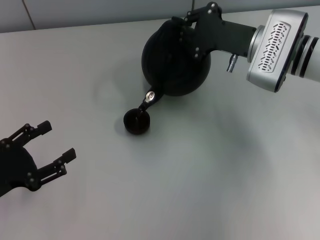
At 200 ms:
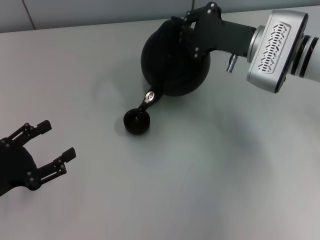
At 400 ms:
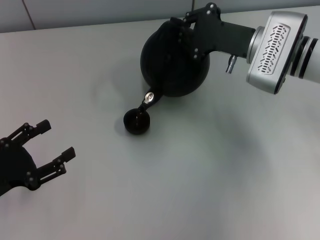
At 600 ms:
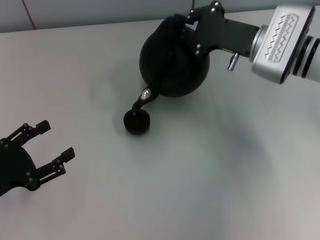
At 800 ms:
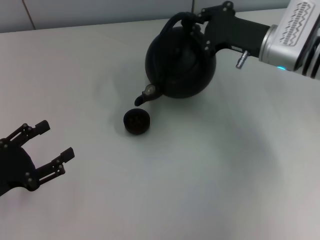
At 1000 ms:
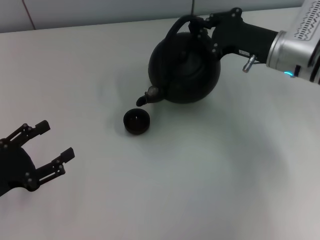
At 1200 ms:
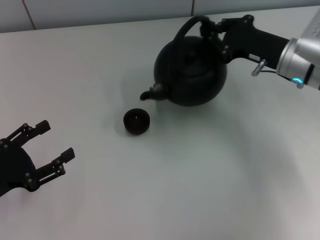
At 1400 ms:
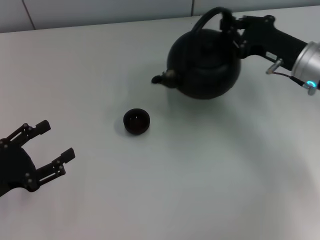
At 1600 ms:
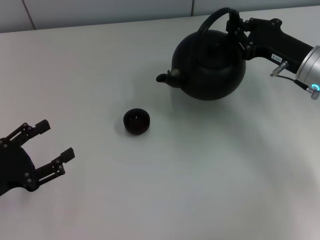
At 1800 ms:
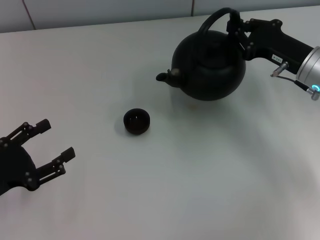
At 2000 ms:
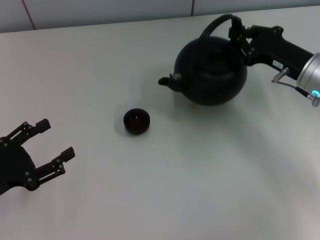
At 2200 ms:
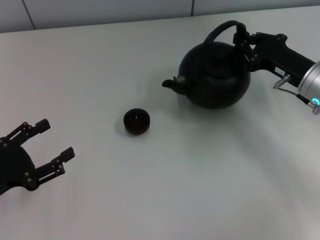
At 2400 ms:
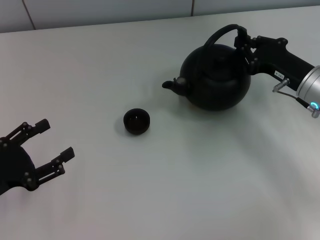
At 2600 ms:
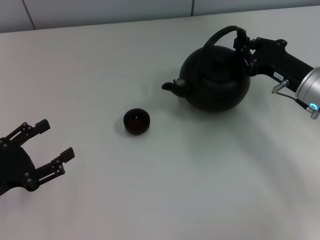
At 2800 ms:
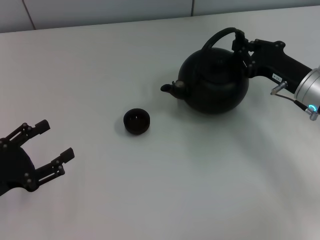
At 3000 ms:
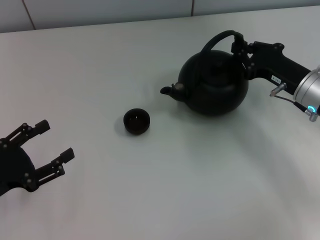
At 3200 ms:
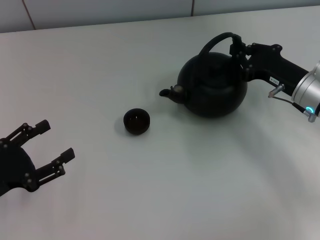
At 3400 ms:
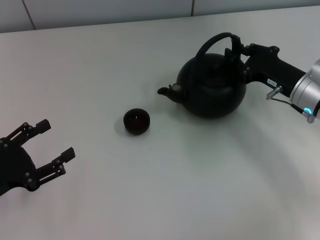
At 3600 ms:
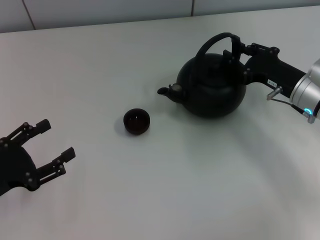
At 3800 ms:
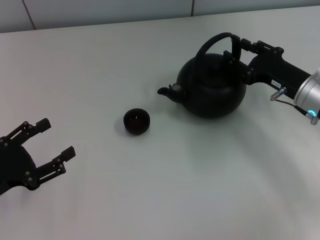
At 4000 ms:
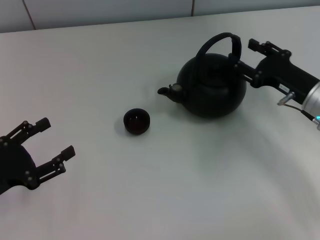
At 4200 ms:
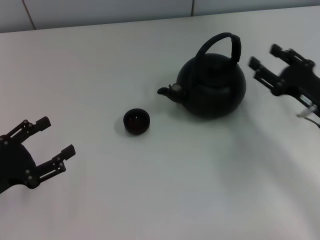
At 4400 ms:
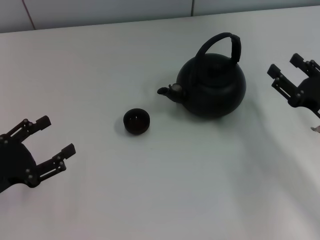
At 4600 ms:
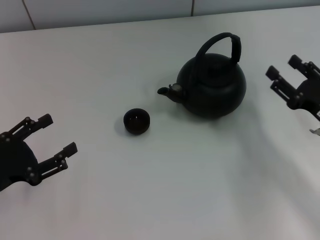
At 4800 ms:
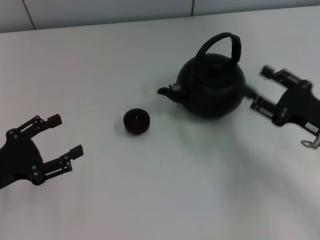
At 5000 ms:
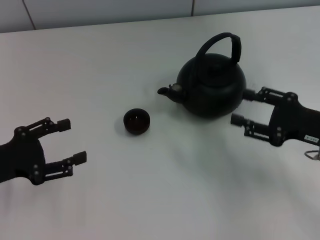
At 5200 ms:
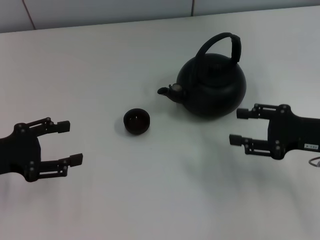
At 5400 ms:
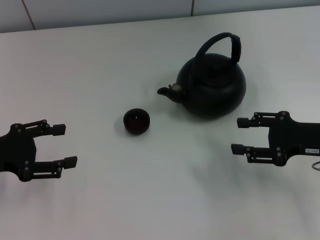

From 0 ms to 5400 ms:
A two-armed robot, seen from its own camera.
Task of the whole recording: Grasp the handle of the teapot with one hand and pour tea into the teacup.
Step, from 1400 ms to 4200 ms: Put down the teapot with the right gripper.
From 0 ms to 1400 ms: The right gripper moves to the right, about 5 cm.
From 1400 ms to 2800 ms: The grippers stay close to where they were, moving slightly.
From 2800 ms to 4000 ms: The right gripper opens up.
From 4000 ms to 5400 ms: The right gripper shifts approximately 5 cm backward. The left gripper moves forward, about 5 cm.
